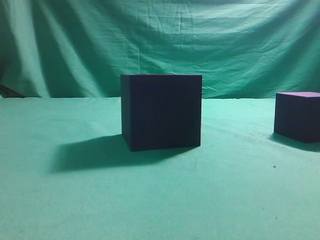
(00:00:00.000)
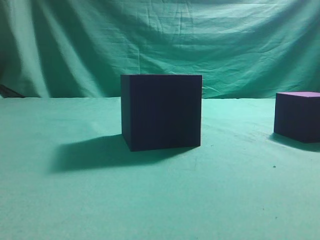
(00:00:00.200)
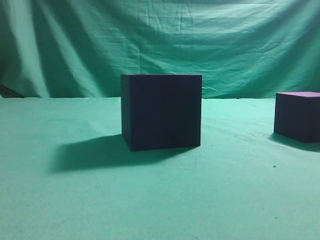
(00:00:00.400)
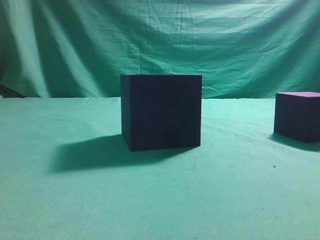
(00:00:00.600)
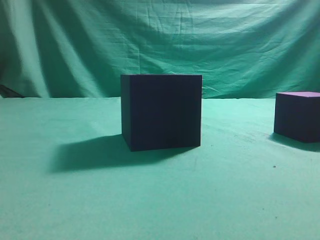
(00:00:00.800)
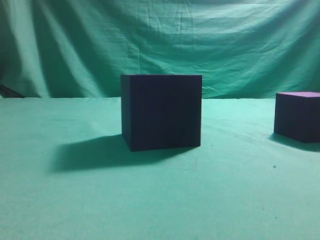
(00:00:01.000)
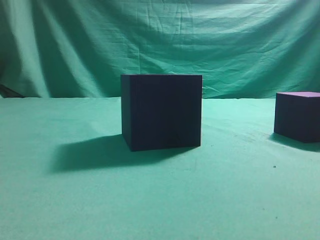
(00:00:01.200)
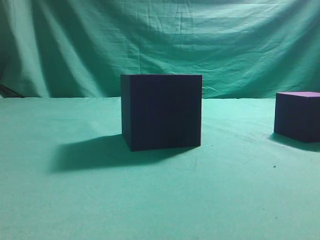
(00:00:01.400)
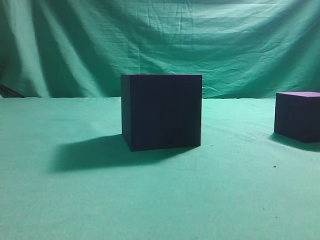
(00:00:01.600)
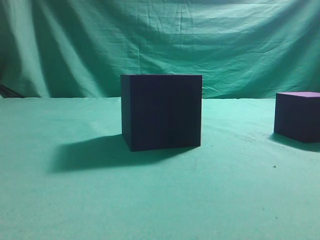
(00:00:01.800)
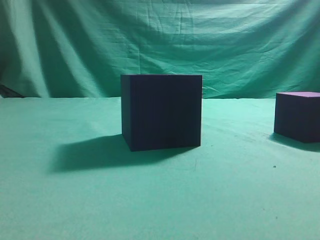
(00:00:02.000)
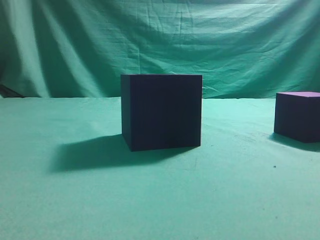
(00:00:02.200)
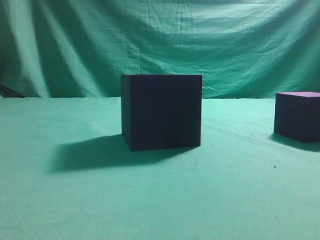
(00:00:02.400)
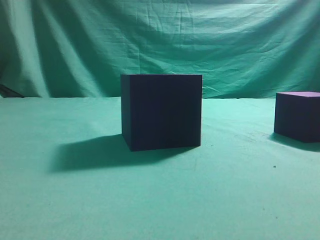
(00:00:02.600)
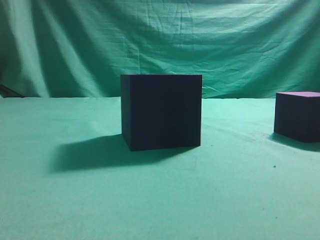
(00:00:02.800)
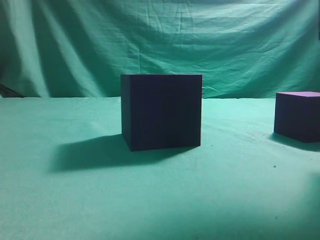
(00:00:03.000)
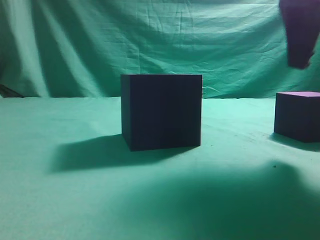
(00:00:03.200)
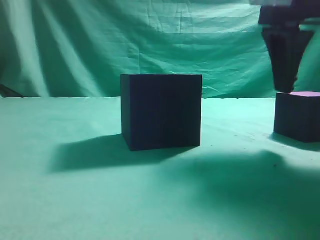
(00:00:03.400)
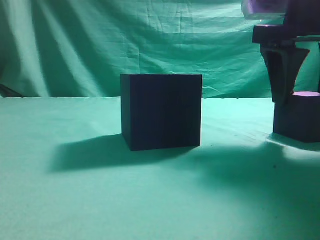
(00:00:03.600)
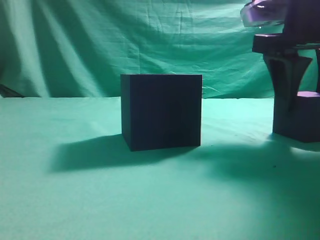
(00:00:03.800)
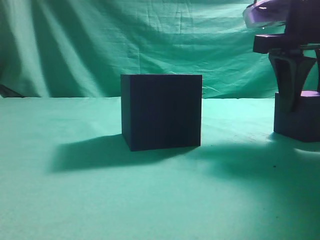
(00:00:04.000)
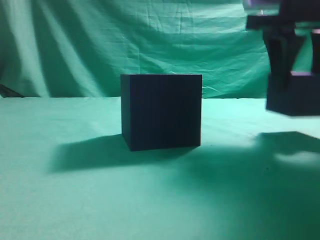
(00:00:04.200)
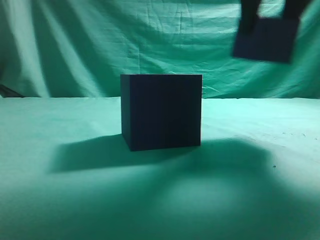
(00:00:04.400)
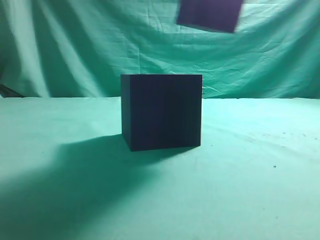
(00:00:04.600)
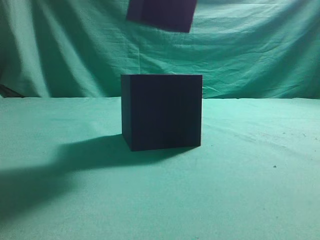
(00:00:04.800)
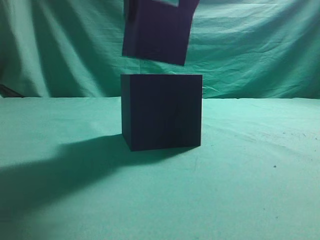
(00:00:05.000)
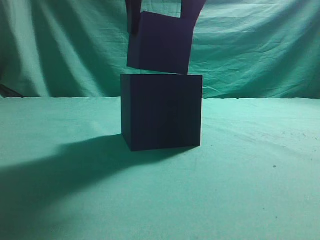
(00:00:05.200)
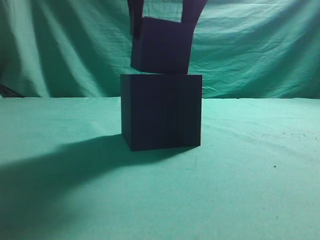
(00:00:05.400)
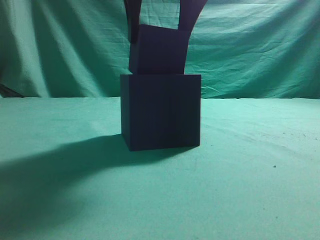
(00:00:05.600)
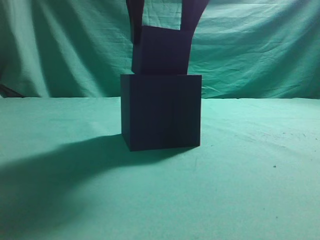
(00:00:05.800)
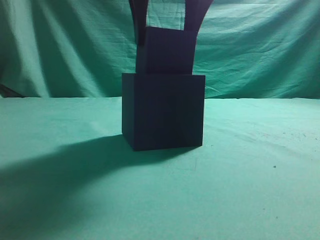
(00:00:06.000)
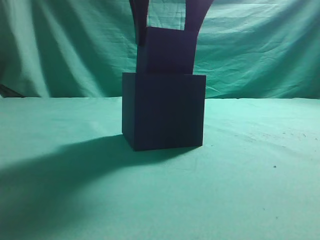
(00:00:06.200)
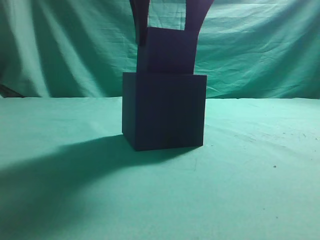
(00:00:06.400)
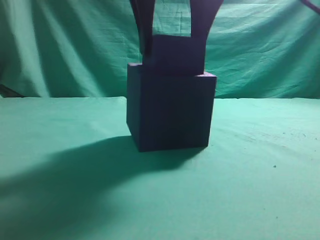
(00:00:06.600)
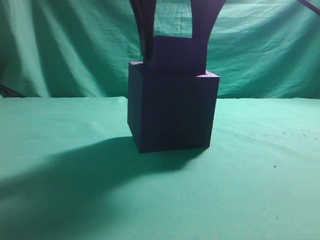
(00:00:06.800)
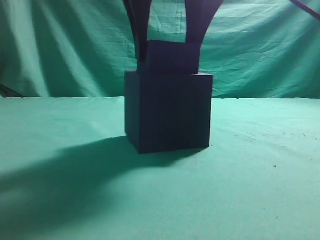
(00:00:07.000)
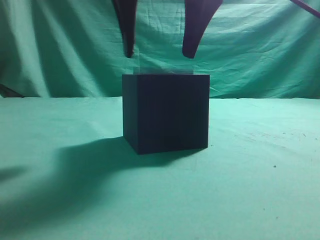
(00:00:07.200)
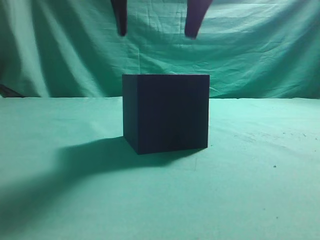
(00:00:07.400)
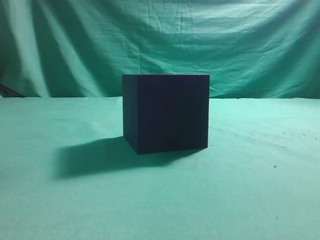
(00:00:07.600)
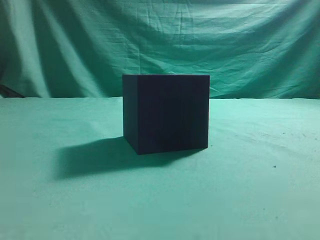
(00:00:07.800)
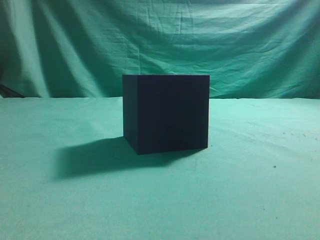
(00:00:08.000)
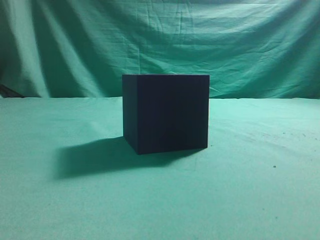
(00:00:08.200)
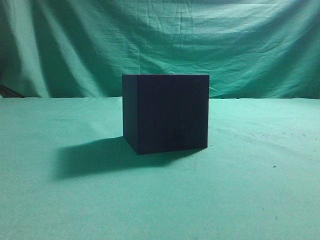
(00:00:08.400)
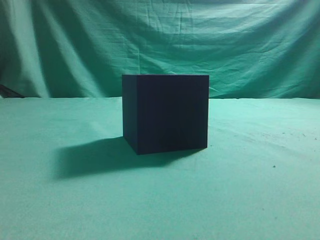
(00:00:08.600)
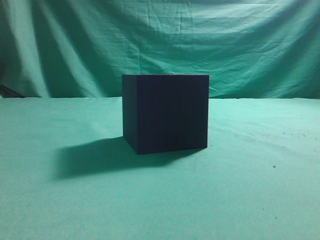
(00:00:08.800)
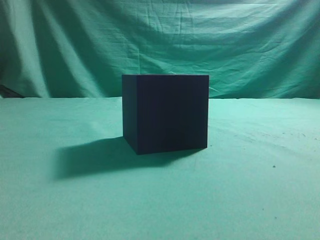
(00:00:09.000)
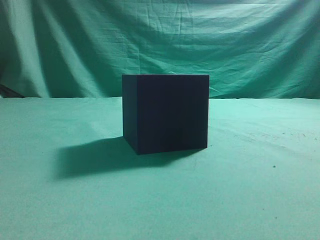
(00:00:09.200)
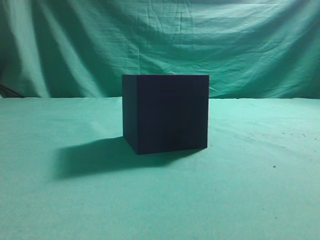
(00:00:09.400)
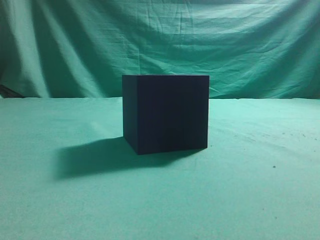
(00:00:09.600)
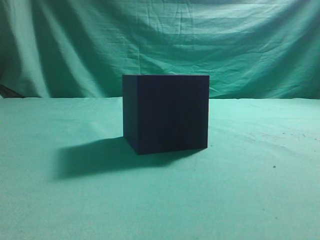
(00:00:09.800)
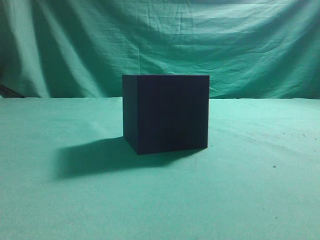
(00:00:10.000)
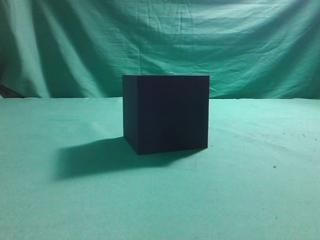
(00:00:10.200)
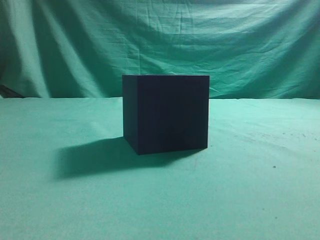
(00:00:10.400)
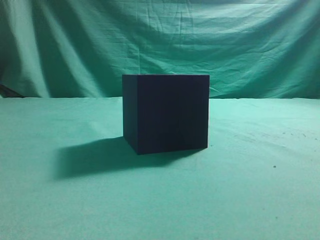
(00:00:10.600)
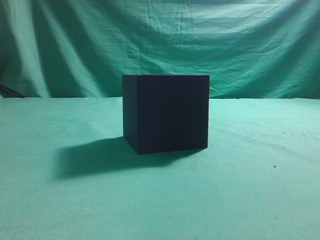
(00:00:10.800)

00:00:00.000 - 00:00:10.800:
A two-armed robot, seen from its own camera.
Task of the whole recording: pick up the cube block and place it into the cube groove.
Step, 00:00:00.000 - 00:00:04.200: Grasp the cube.
Step, 00:00:04.400 - 00:00:07.200: Place cube into the cube-shaped recess.
00:00:01.600 - 00:00:03.000: The right gripper goes approximately 20 cm forward and to the left.
00:00:03.000 - 00:00:04.600: The right gripper is displaced to the left and upward by some 10 cm, and opens.
00:00:04.600 - 00:00:06.200: The right gripper is displaced to the left and downward by some 10 cm.
00:00:06.200 - 00:00:07.800: The right gripper goes about 10 cm upward, and closes up.
